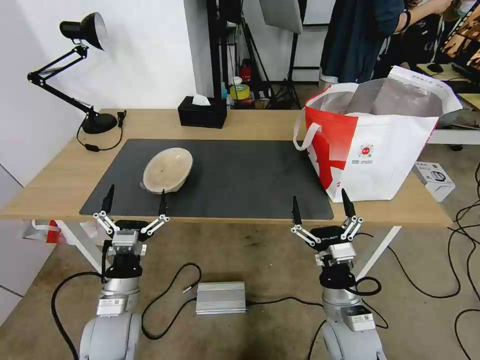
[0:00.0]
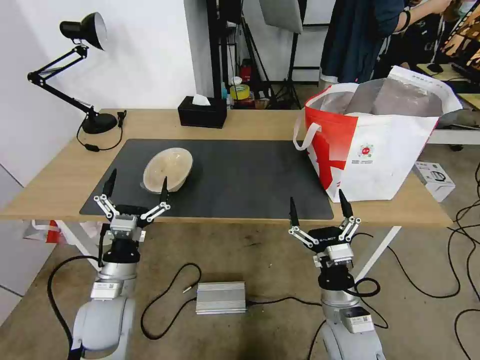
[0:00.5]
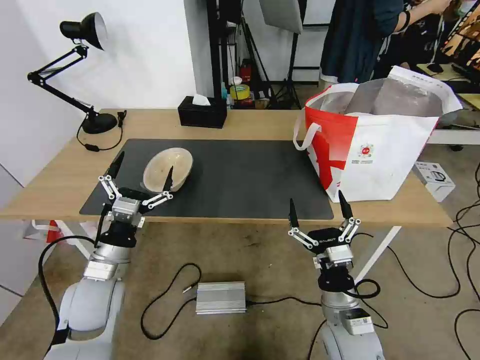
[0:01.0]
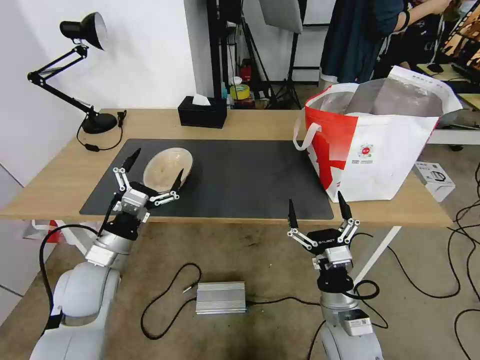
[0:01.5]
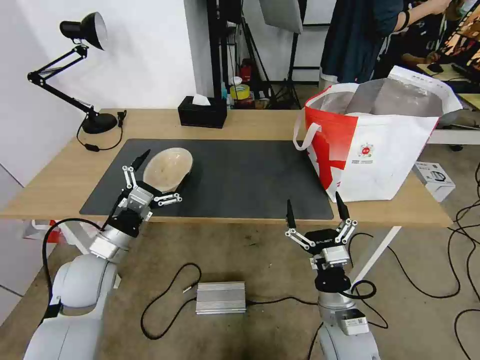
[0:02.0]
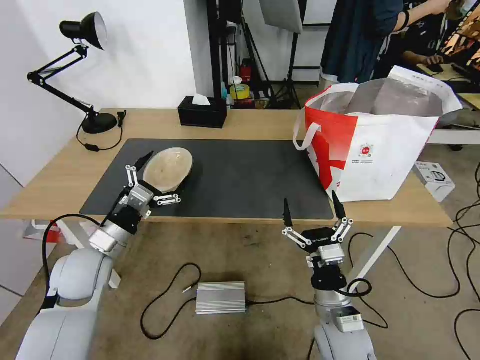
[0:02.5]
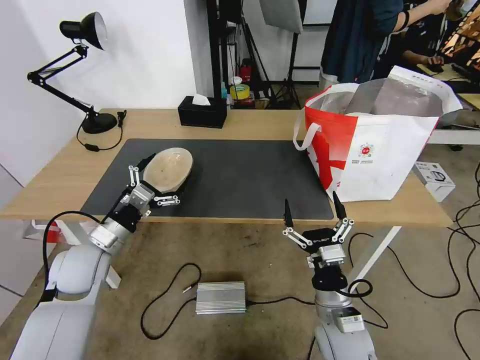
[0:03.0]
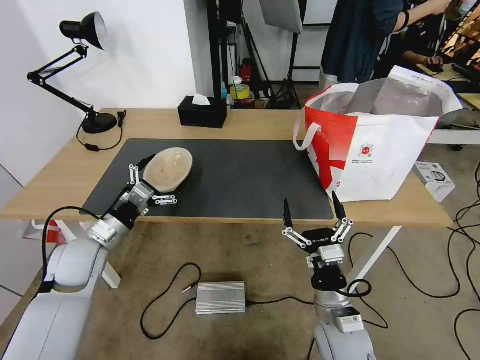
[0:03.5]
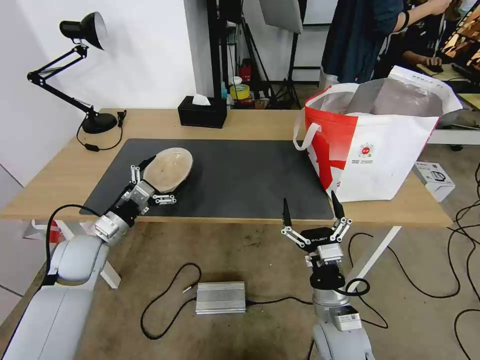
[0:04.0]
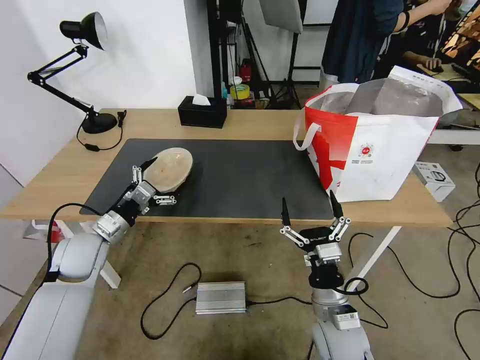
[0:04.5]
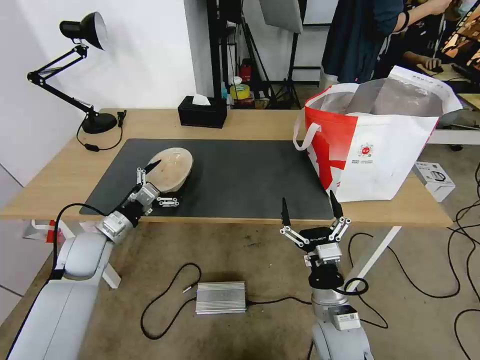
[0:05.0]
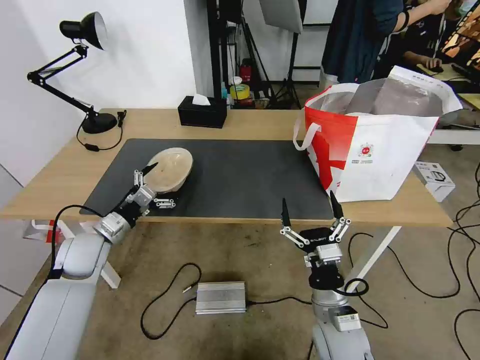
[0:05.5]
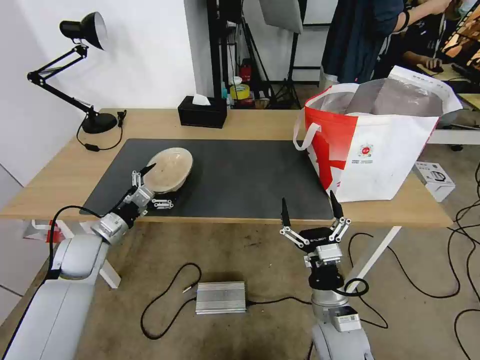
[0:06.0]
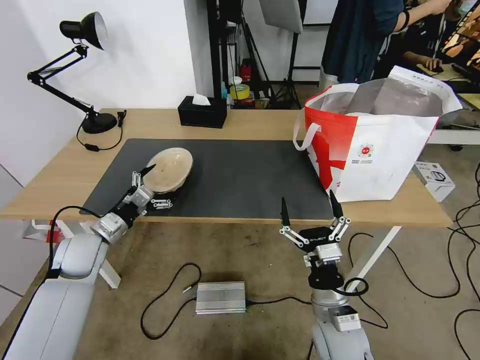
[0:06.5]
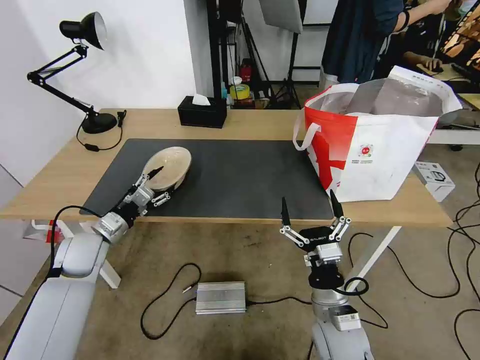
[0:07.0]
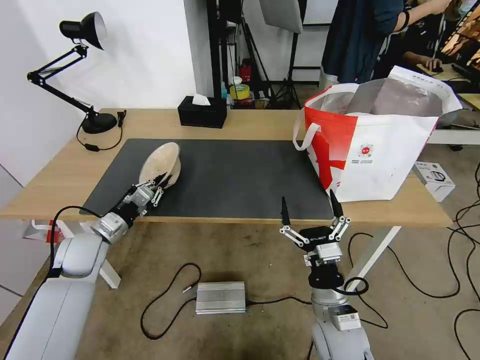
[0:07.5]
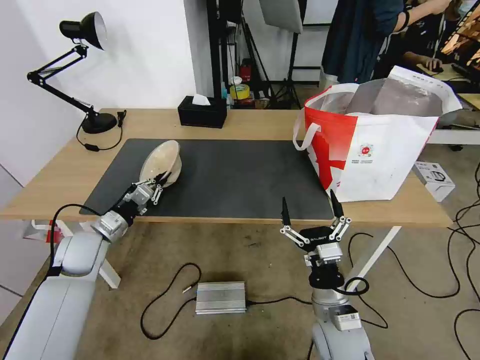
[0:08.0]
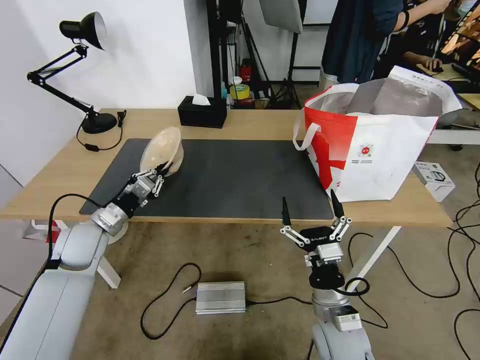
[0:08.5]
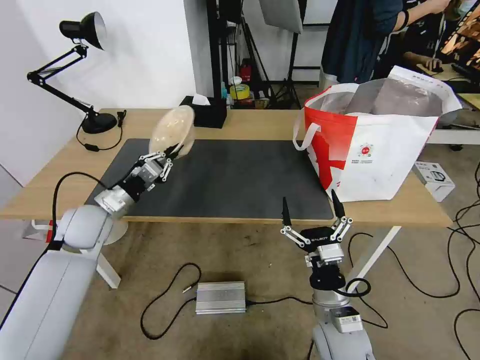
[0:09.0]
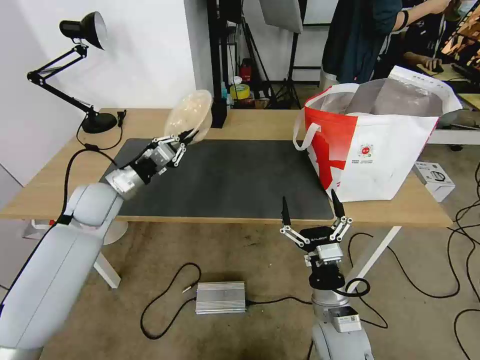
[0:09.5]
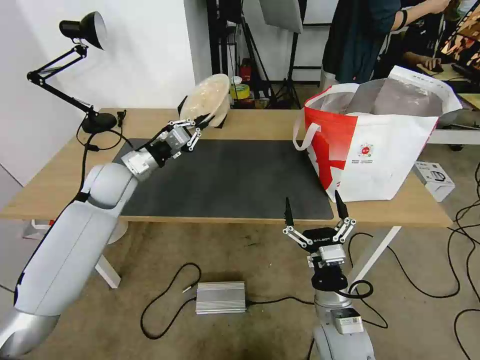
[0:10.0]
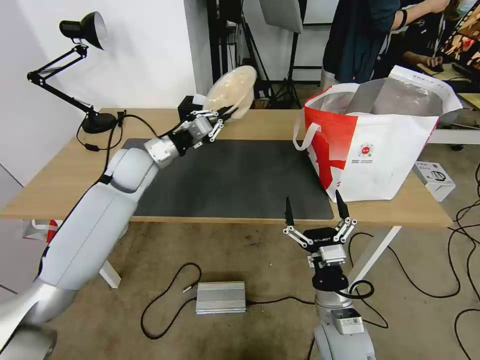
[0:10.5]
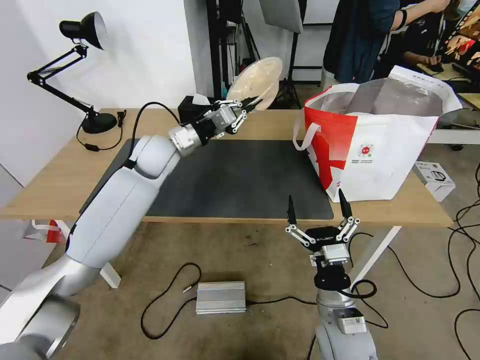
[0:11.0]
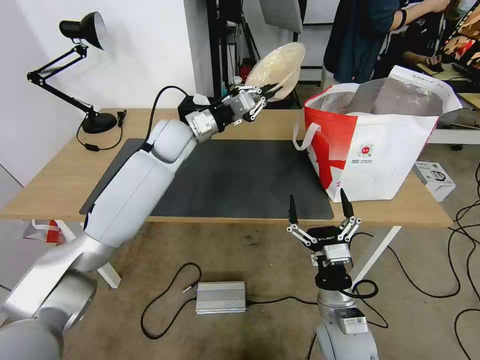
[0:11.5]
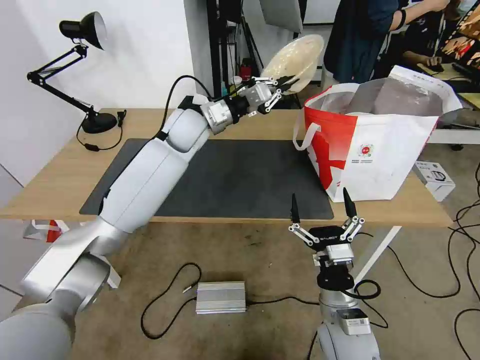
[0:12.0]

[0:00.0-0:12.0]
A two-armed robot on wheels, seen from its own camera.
Task of the whole recording: Pick up the trash from the table and place it into the takeout bag.
0.0 to 2.0 s: The left gripper moves forward, upward and to the left, some 10 cm.
2.0 to 4.0 s: The left gripper is displaced forward by some 5 cm.
4.0 to 6.0 s: The grippers make only small movements.
6.0 to 8.0 s: The left gripper closes its fingers.
8.0 to 10.0 s: The left gripper travels upward, forward and to the right by some 20 cm.
10.0 to 12.0 s: The left gripper travels to the right, forward and upward by roughly 20 cm.

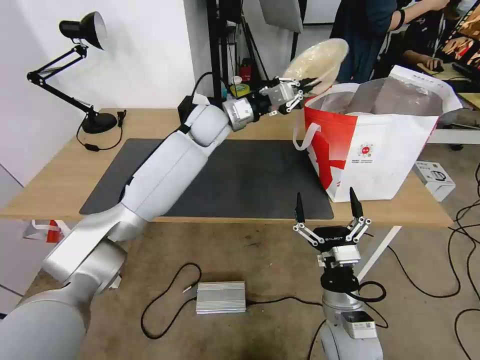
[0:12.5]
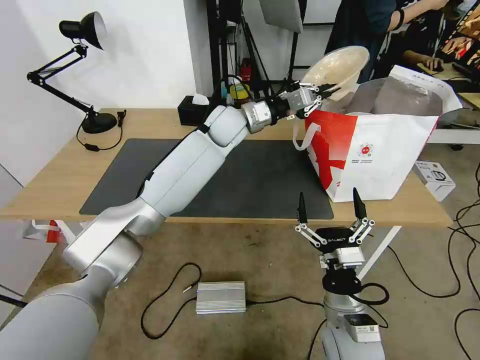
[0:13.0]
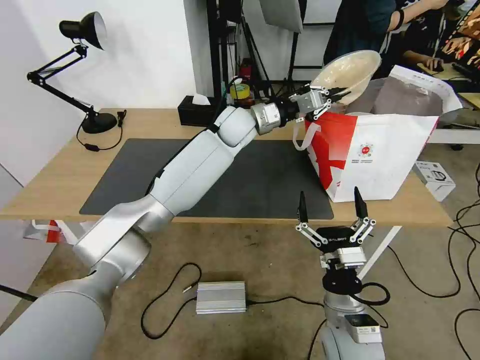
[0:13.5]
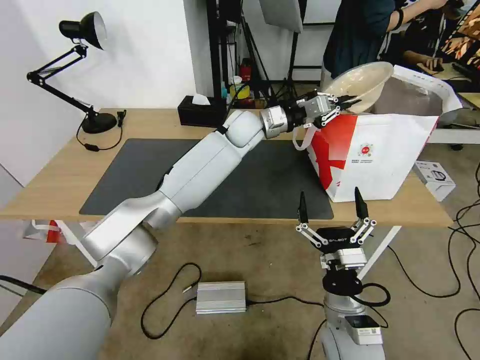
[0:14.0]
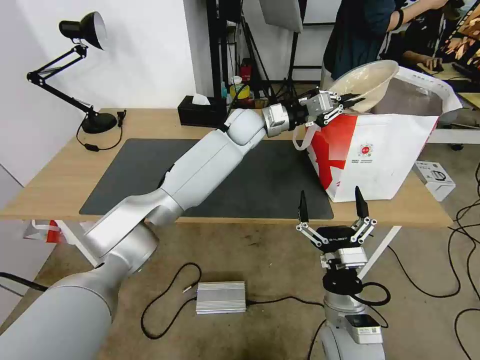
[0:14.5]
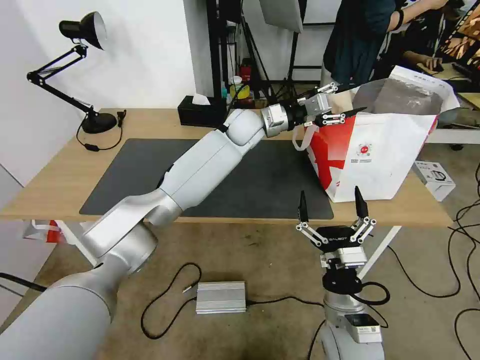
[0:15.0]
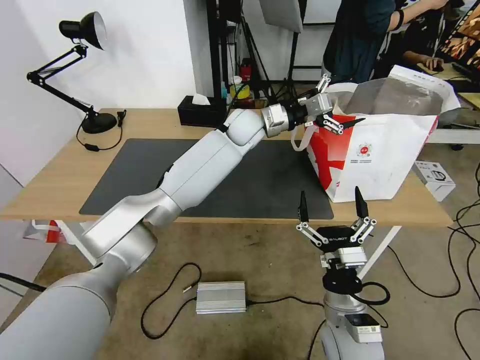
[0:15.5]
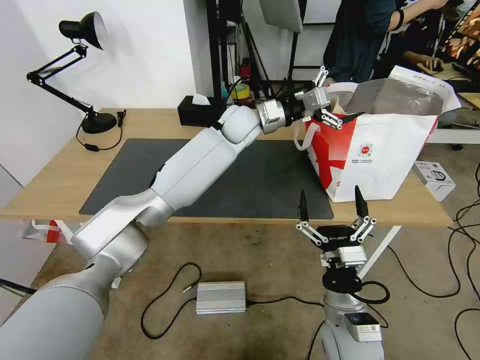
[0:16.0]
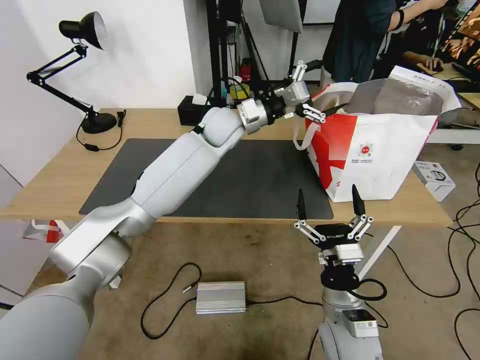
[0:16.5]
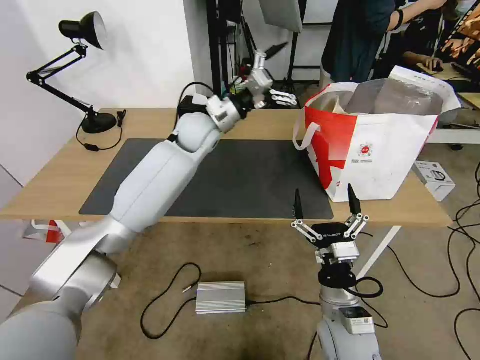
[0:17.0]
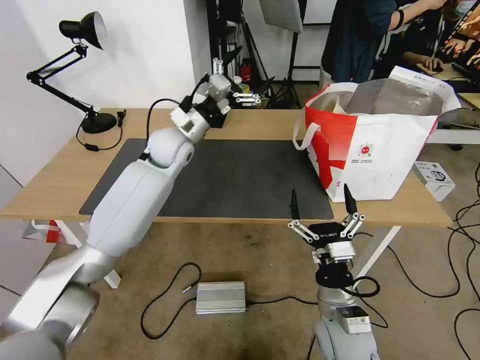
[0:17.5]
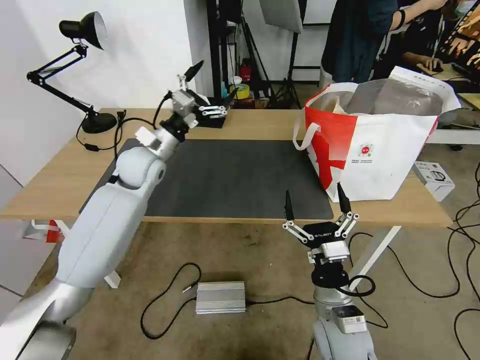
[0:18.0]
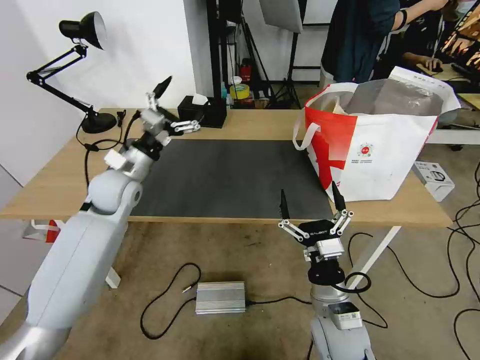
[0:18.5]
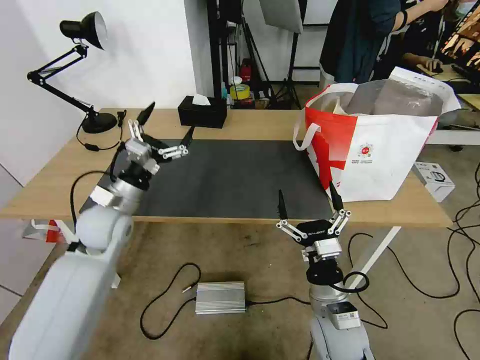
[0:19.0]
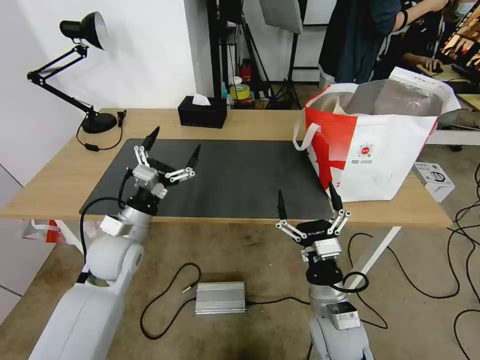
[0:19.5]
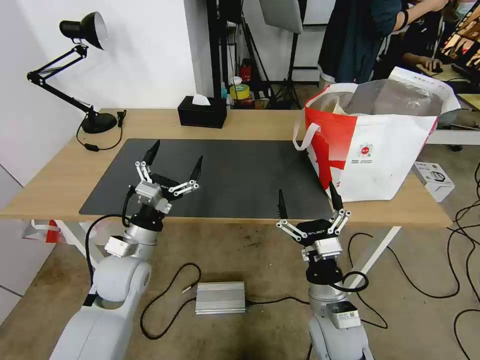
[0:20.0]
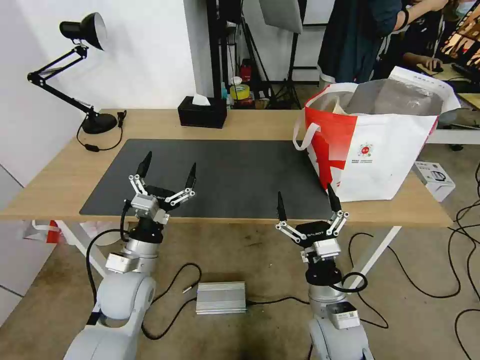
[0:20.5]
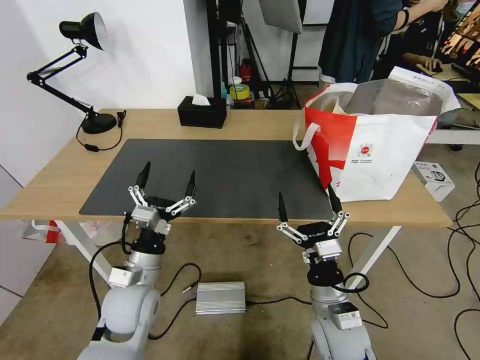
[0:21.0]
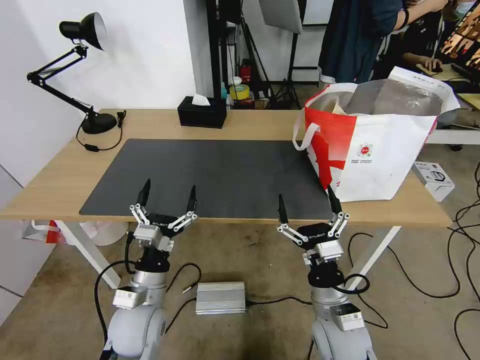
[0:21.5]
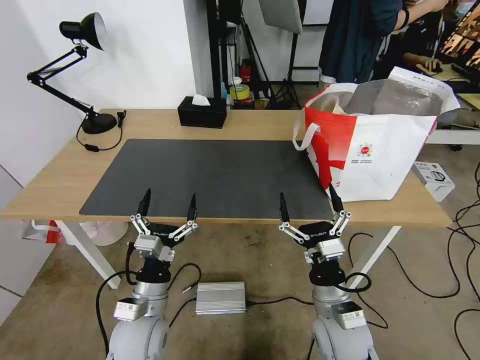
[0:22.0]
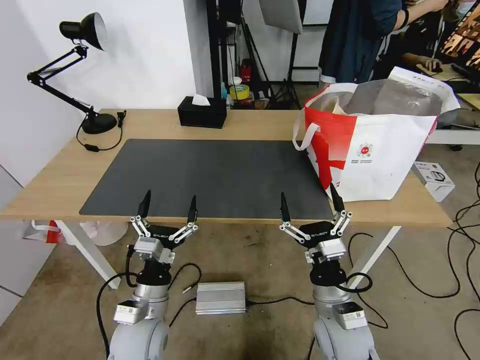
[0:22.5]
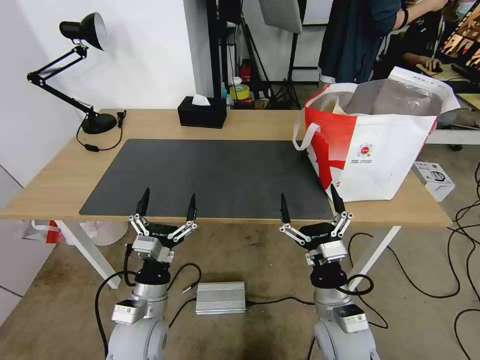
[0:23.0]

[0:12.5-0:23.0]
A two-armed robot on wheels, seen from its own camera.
Task of the whole recording: Pick up the trash from the table and place it into the takeout bag.
12.5 to 14.5 s: The left gripper travels to the right by approximately 10 cm.
14.5 to 16.5 s: The left gripper heads to the left, covering about 5 cm, and opens up.
16.5 to 19.0 s: The left gripper heads to the left, backward and downward, covering some 35 cm.
19.0 to 21.0 s: The left gripper goes about 15 cm backward, downward and to the right.
21.0 to 23.0 s: The left gripper moves roughly 5 cm.

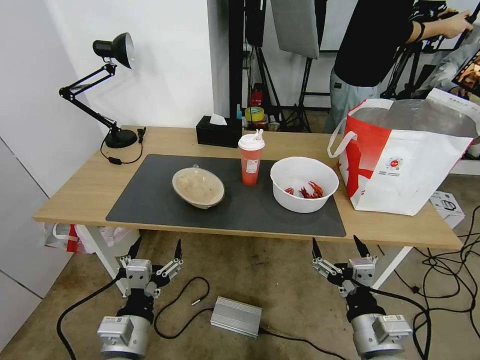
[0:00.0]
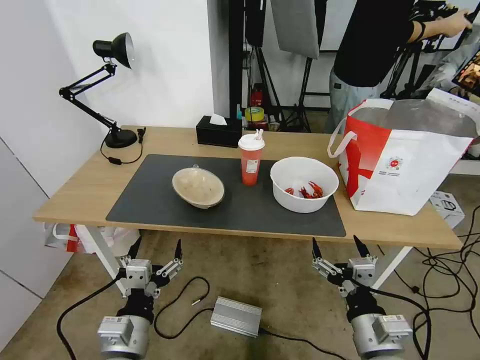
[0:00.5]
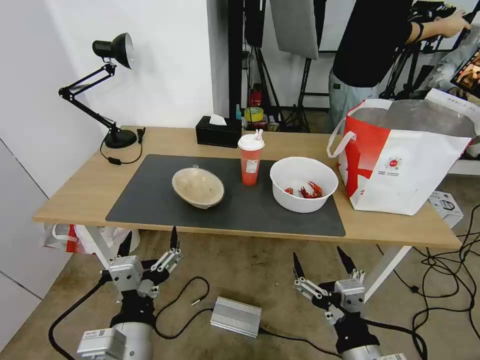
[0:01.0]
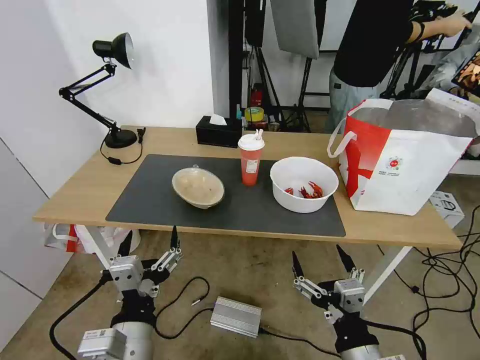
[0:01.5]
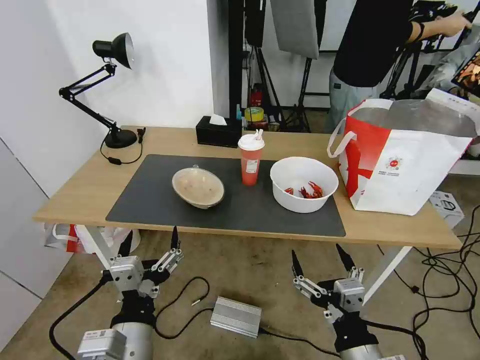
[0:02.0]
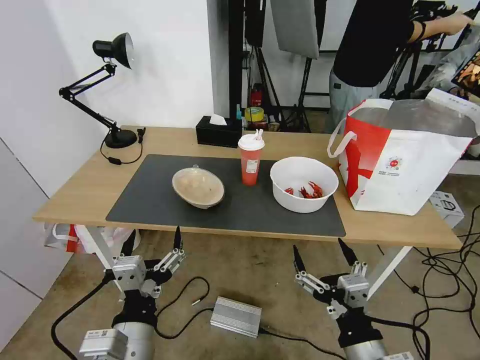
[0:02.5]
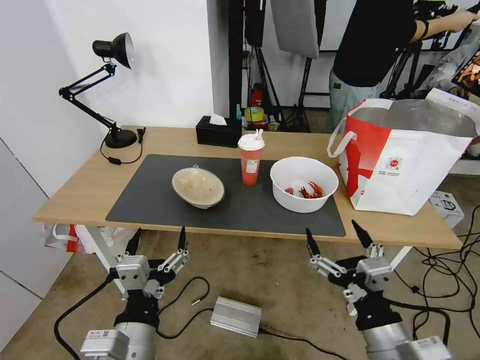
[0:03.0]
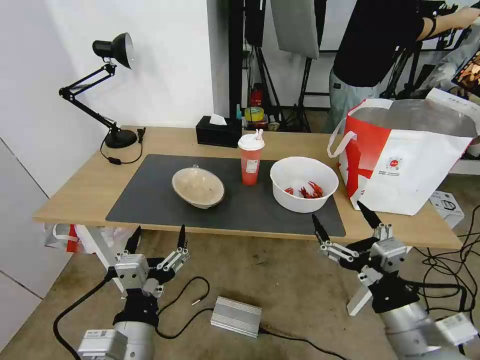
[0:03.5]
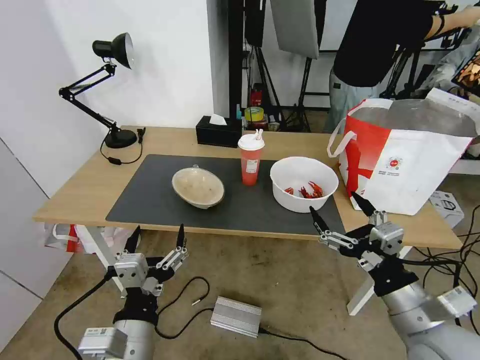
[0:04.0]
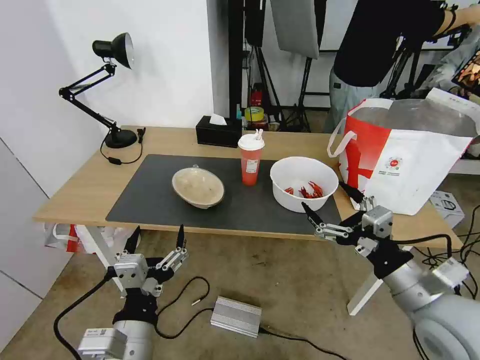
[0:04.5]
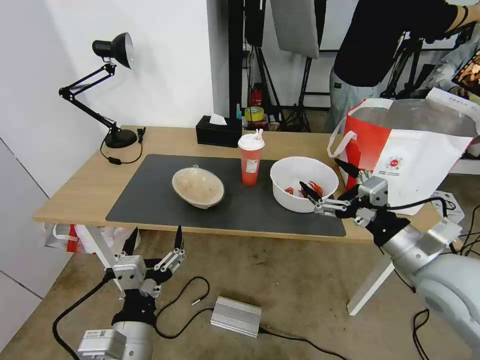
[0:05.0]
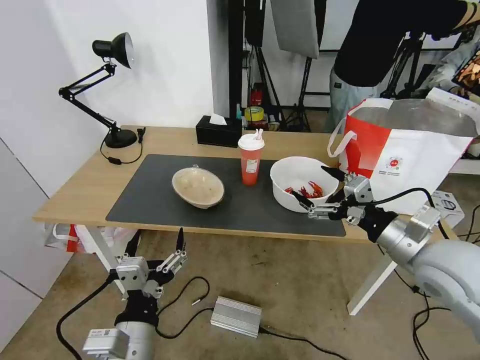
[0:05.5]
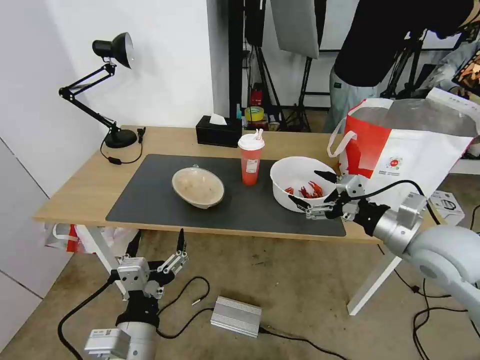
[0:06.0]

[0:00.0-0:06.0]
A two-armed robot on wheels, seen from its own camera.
Task of the whole recording: Pick up the trash from the table and place it into the takeout bag.
2.0 to 4.0 s: The right gripper travels to the right, forward and upward by approximately 15 cm.
4.0 to 6.0 s: The right gripper heads forward, covering some 15 cm.
